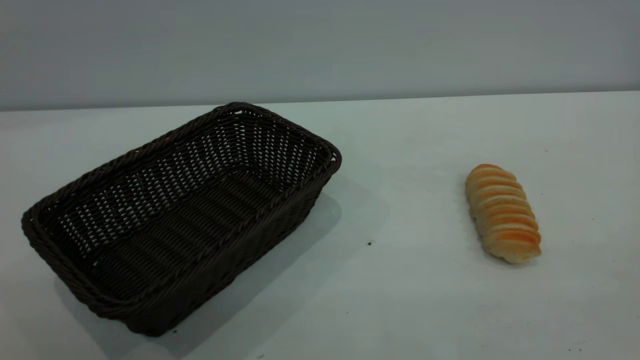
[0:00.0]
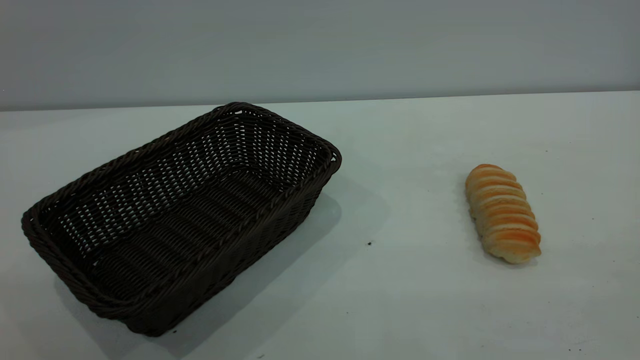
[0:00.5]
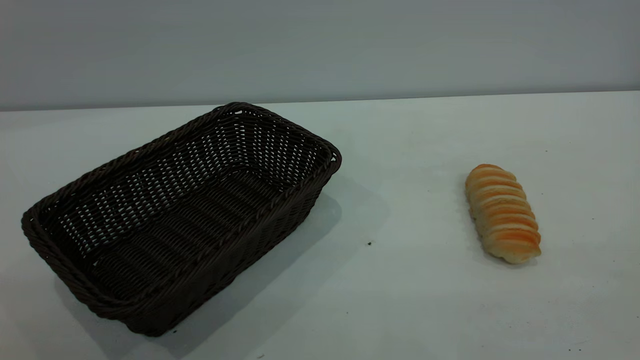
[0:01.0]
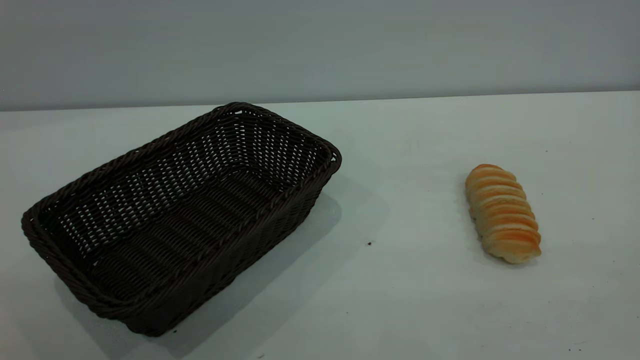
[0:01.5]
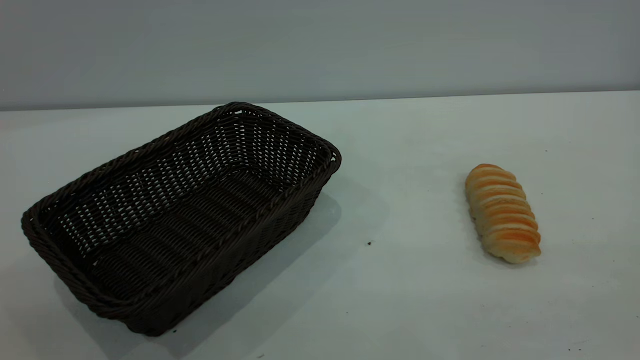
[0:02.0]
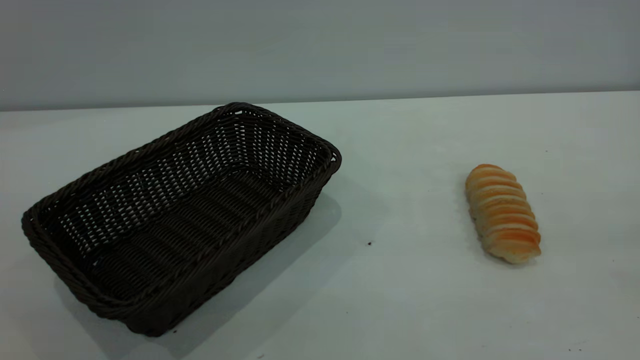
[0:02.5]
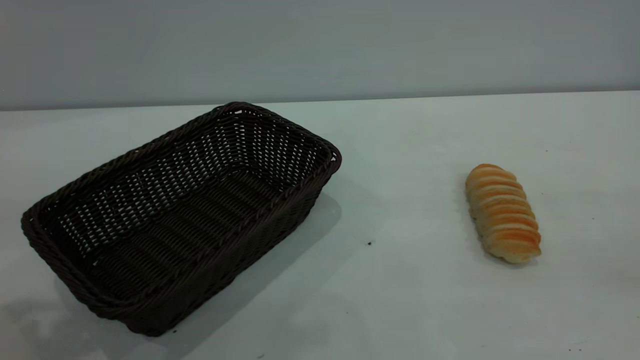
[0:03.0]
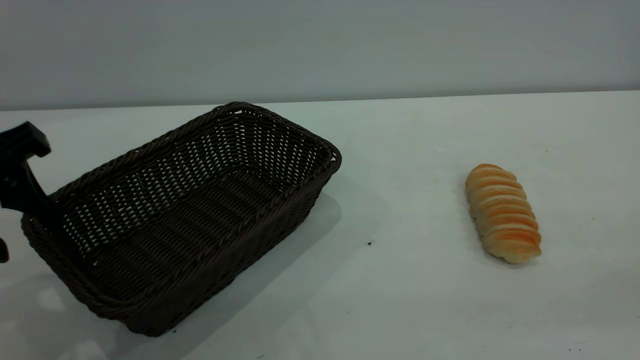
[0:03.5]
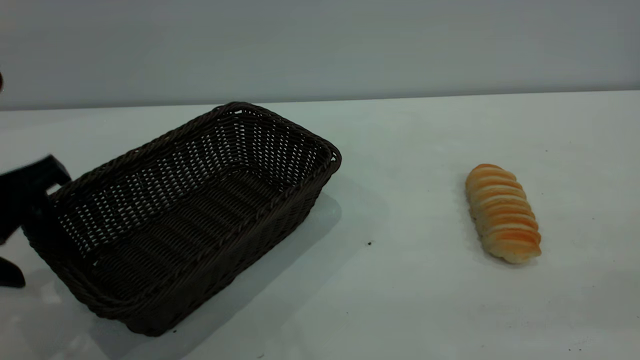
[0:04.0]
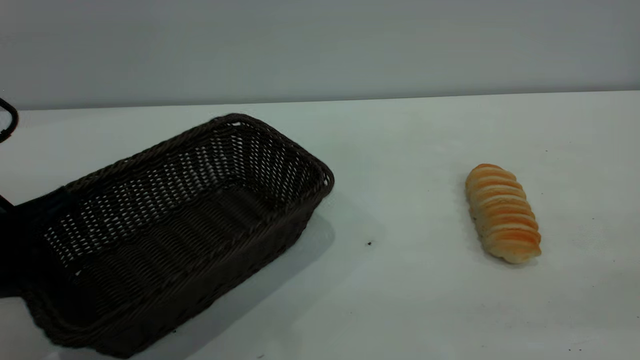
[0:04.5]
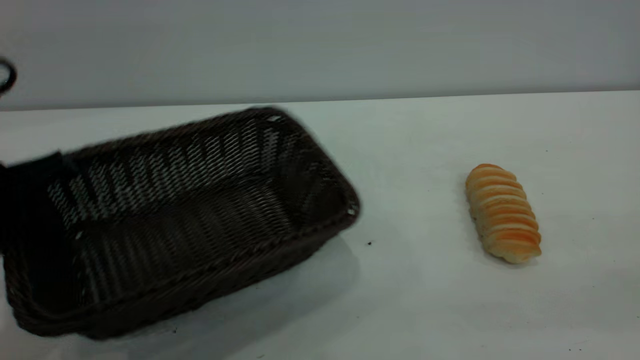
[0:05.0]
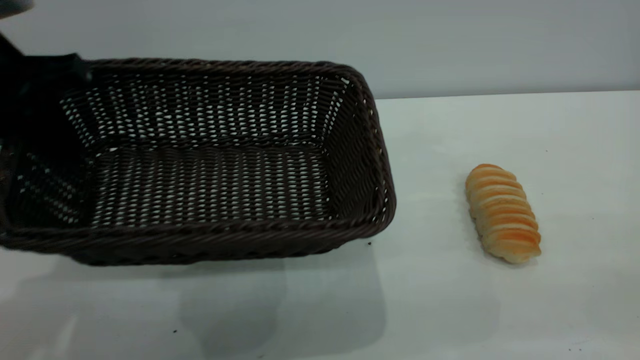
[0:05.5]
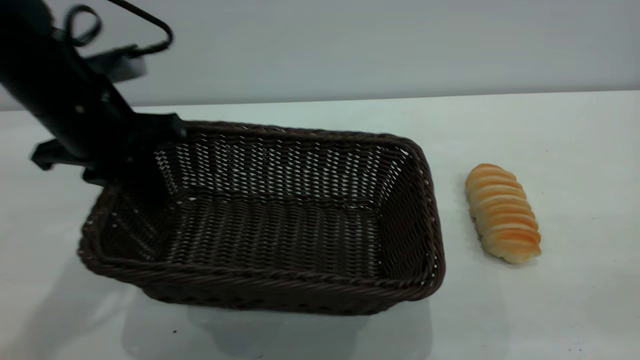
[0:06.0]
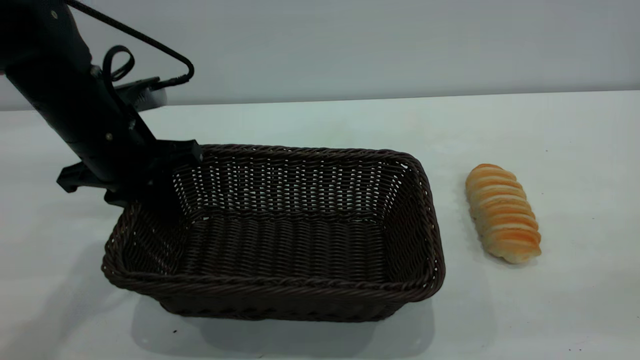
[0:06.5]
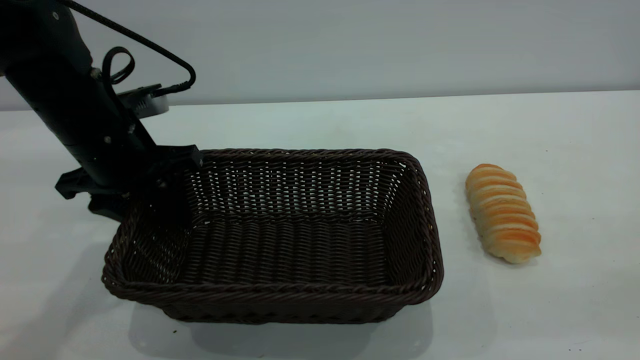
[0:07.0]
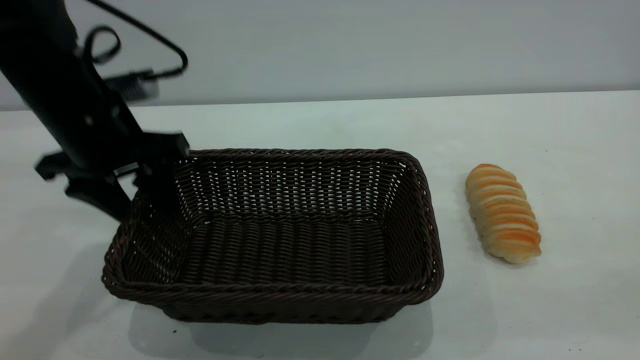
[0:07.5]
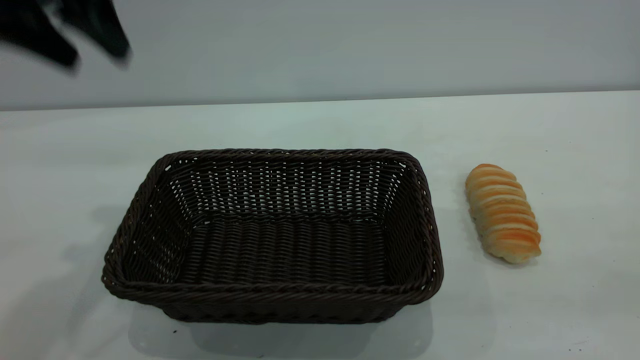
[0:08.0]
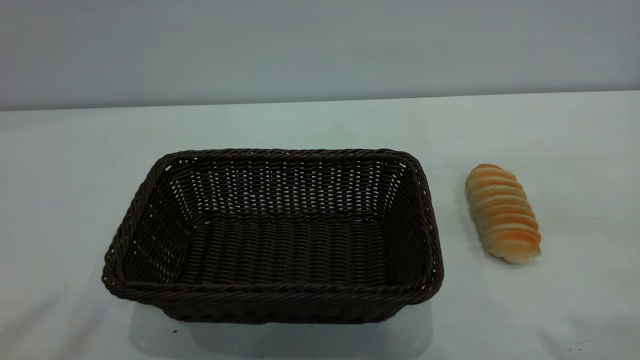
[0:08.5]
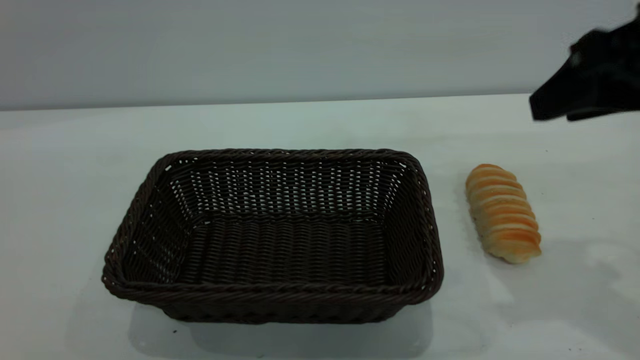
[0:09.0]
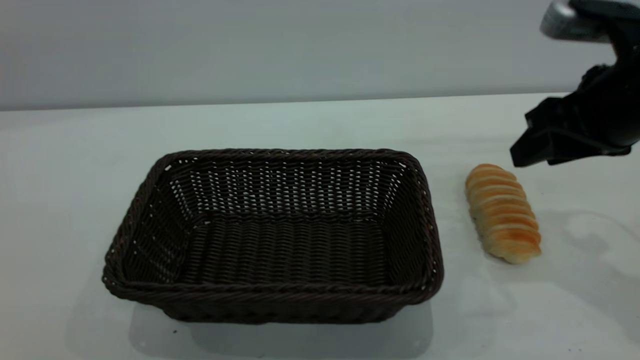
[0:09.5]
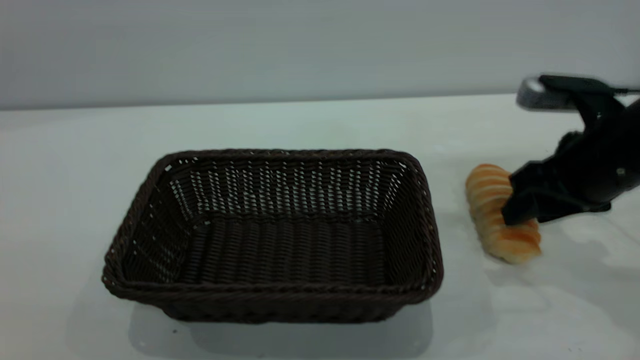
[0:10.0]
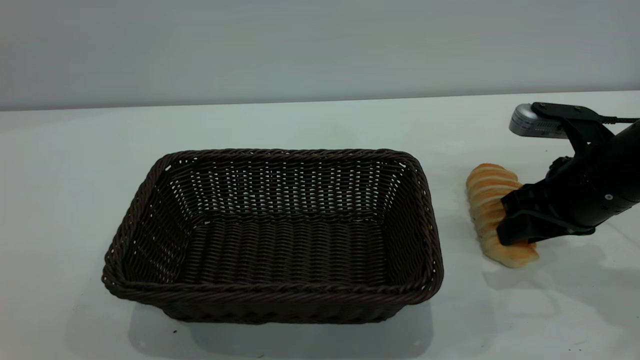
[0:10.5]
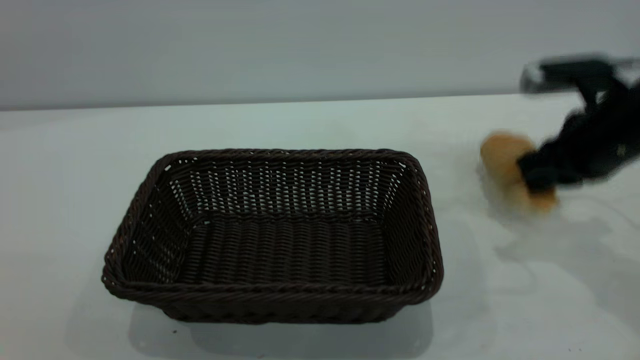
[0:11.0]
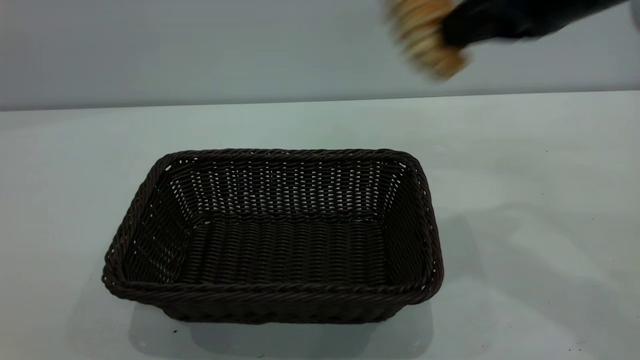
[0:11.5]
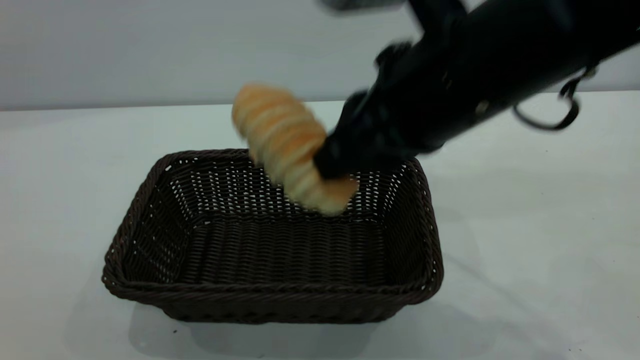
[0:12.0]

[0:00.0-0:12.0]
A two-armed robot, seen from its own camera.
Task of the whole recording: One hand grasps the black basket and places it in the middle of the table, while the other hand picks up the long bread and puts it into the black basket.
Step, 0:00.0 to 0:07.5: Move the basket to the center of view.
0:02.0 to 0:04.0: The left gripper shifts roughly 35 cm forward and downward.
0:04.0 to 0:06.0: The left gripper is displaced forward and to the right by roughly 15 cm, moves about 10 cm upward and comes back, and closes up.
0:06.0 to 0:08.0: The left gripper heads upward, covering about 15 cm, and opens.
0:08.0 to 0:10.0: The right gripper moves forward and downward, about 35 cm. Meanwhile the left gripper moves backward, roughly 40 cm.
0:10.0 to 0:12.0: The right gripper moves to the left and upward, about 20 cm, and closes its fingers.

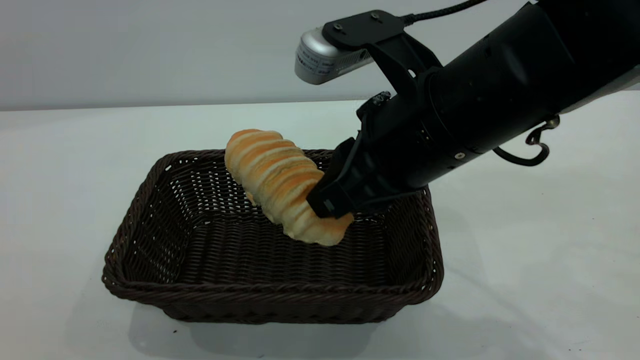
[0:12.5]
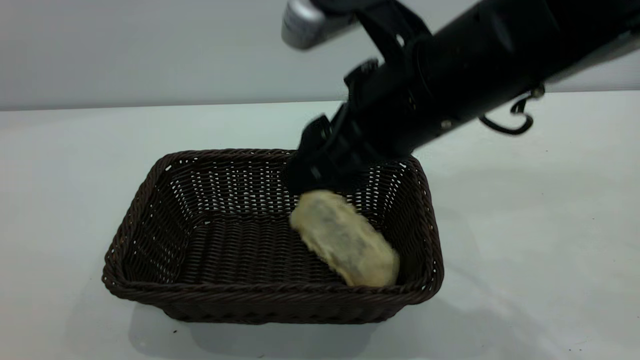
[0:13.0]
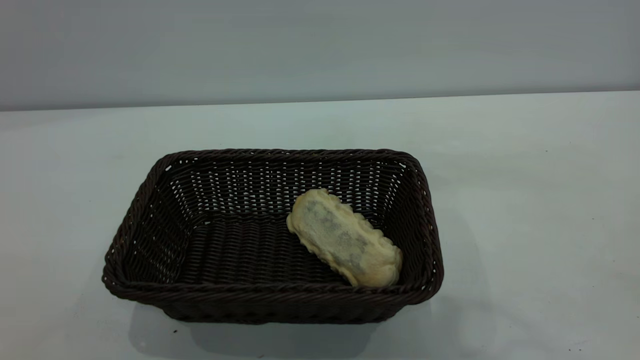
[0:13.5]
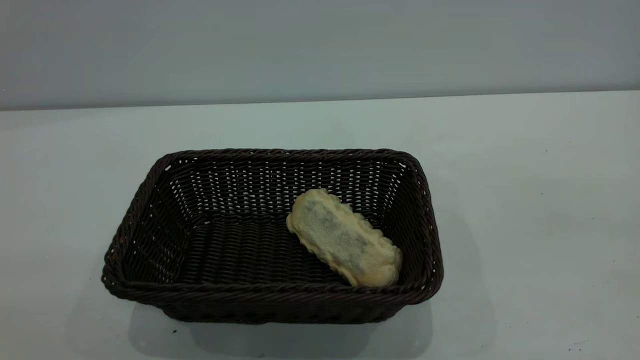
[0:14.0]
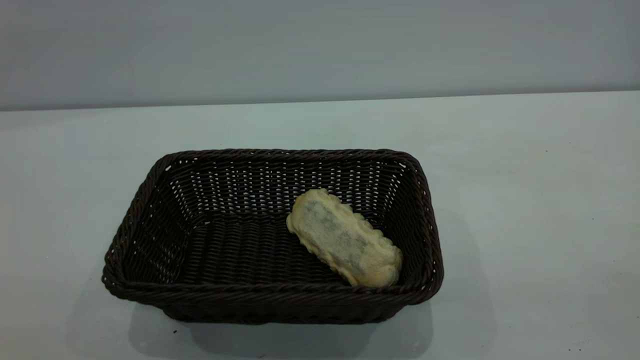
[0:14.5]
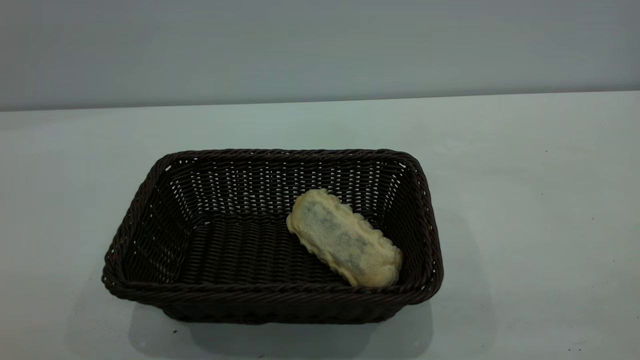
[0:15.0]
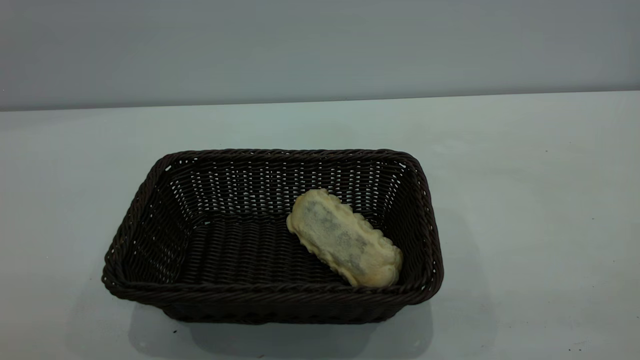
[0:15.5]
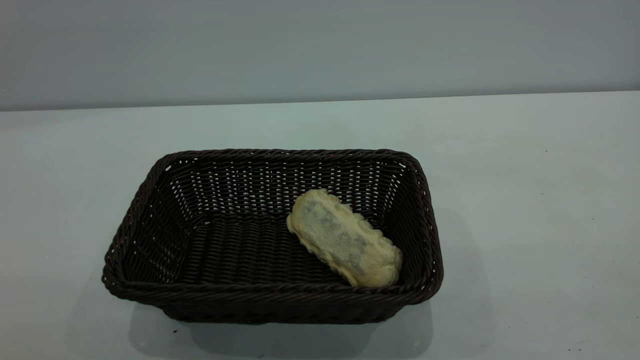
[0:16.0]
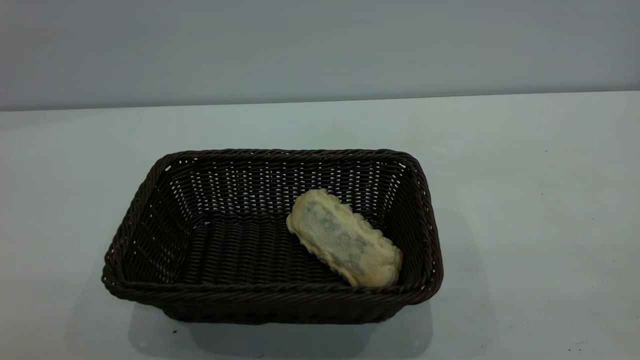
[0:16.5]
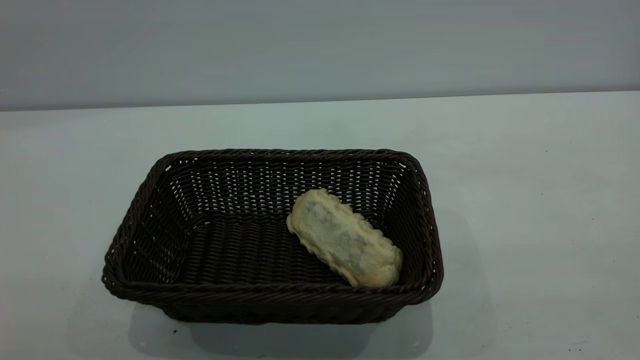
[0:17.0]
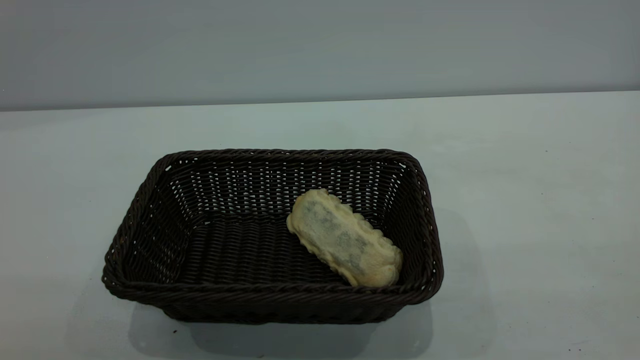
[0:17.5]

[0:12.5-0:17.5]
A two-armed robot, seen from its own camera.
Task of the whole recording: One hand grasps the black basket and places it in the middle of the table, while the other hand picks up the long bread and puts it into the black basket.
0:12.5 to 0:15.0: The left gripper goes roughly 20 cm downward and forward. The right gripper shifts about 35 cm backward, to the right and upward, and opens.
